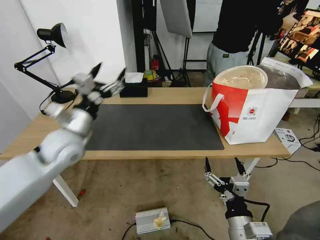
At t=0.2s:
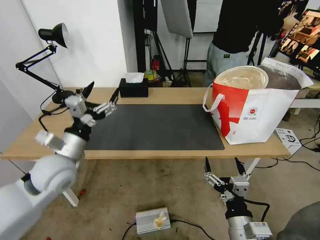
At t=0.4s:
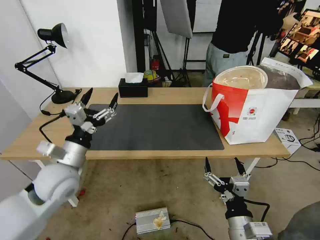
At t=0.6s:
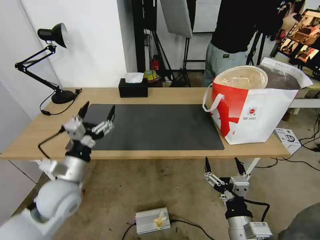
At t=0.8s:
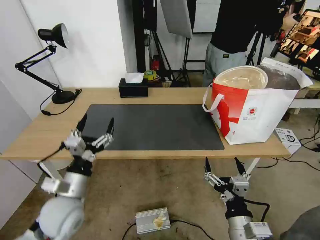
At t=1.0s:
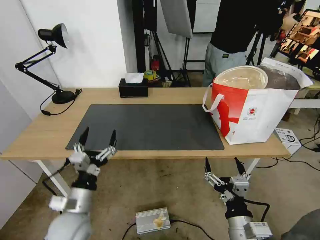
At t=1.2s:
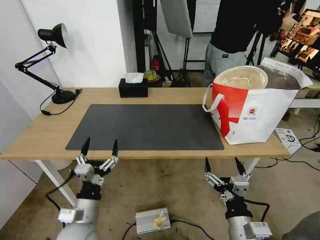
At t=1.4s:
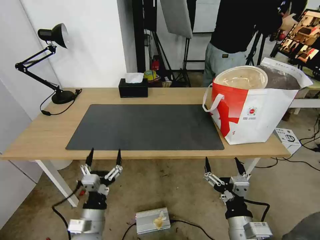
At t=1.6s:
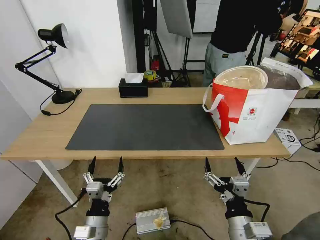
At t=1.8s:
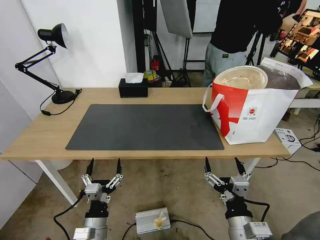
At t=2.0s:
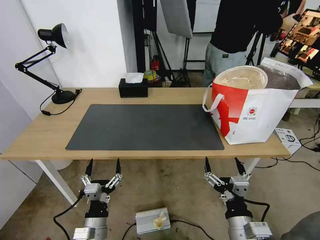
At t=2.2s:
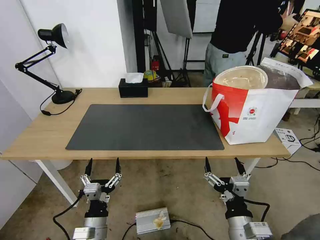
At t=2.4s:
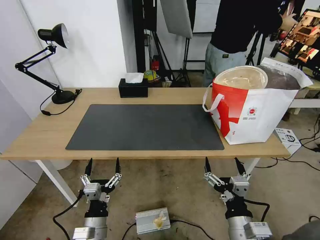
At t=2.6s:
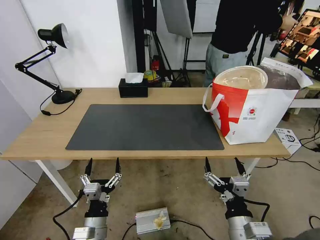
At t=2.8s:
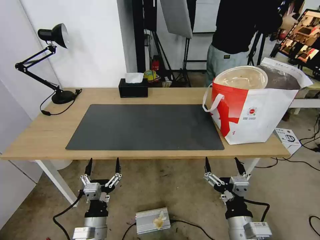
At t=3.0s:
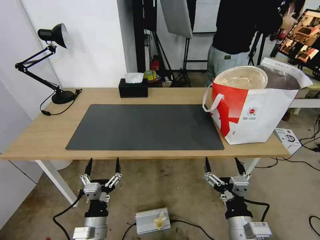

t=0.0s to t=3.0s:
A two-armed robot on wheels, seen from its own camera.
Task of the whole recording: Pick up the trash from the table and place it into the takeout bag.
t=0.0s to t=1.6s: The left gripper travels downward and backward by roughly 30 cm.
t=1.6s to t=3.0s: Both grippers stay about where they are.
